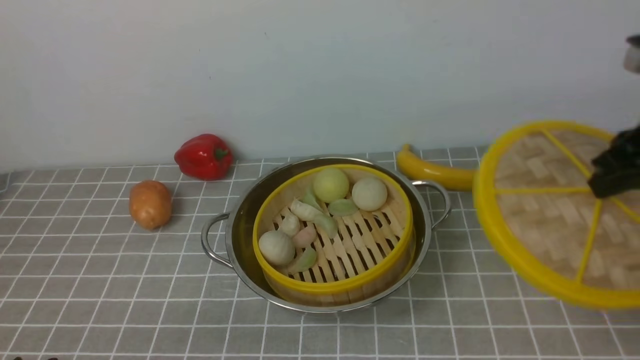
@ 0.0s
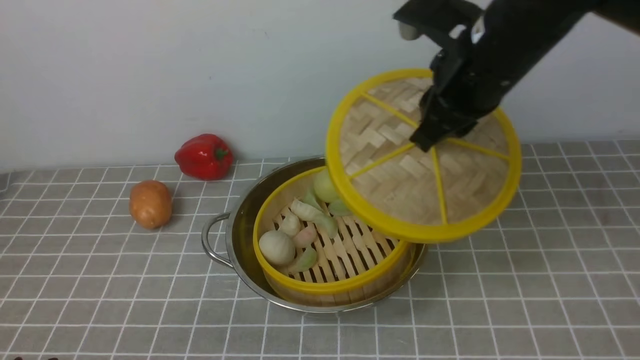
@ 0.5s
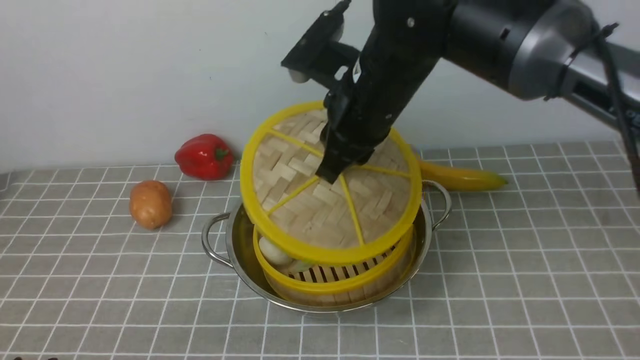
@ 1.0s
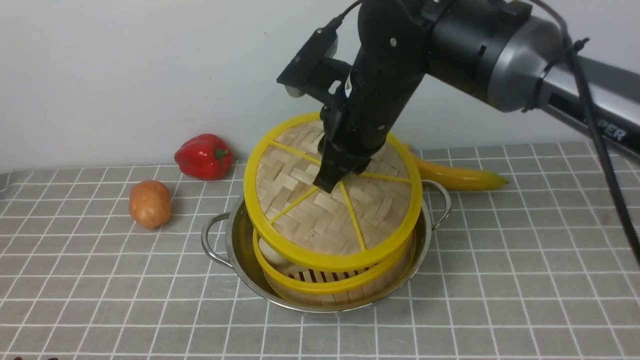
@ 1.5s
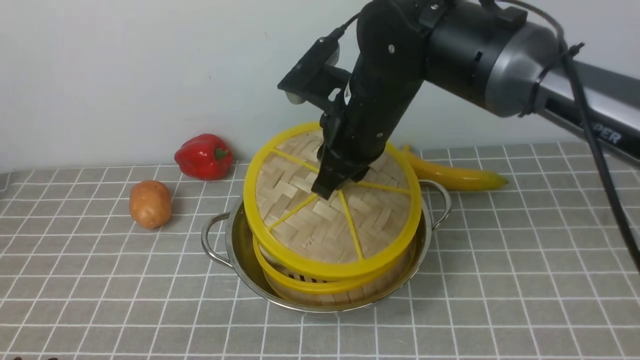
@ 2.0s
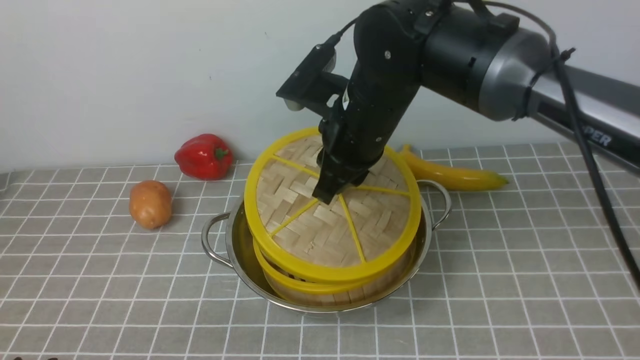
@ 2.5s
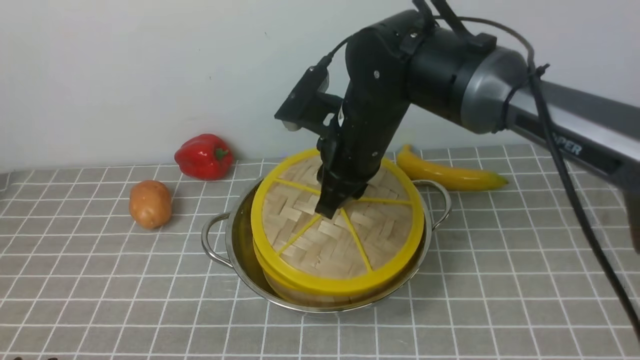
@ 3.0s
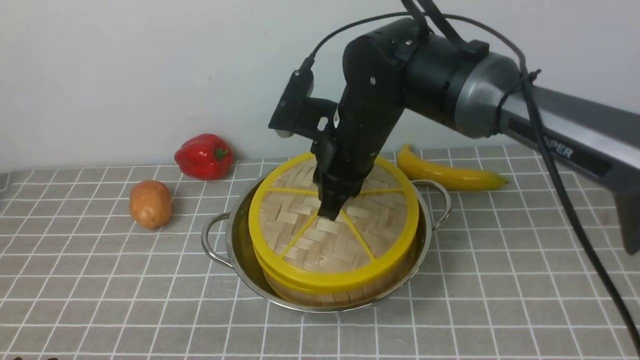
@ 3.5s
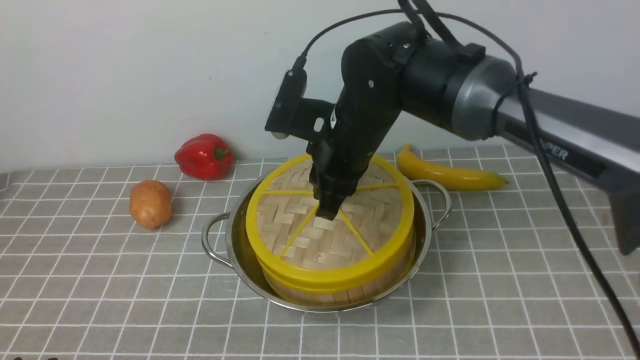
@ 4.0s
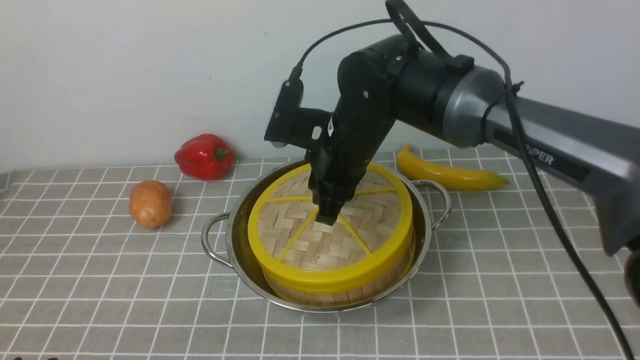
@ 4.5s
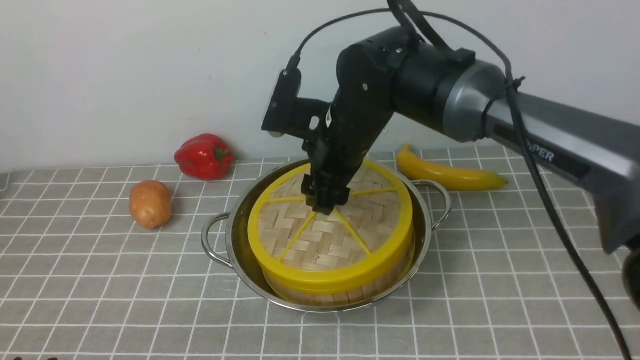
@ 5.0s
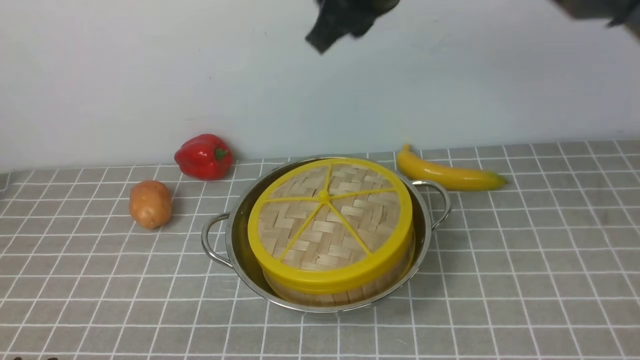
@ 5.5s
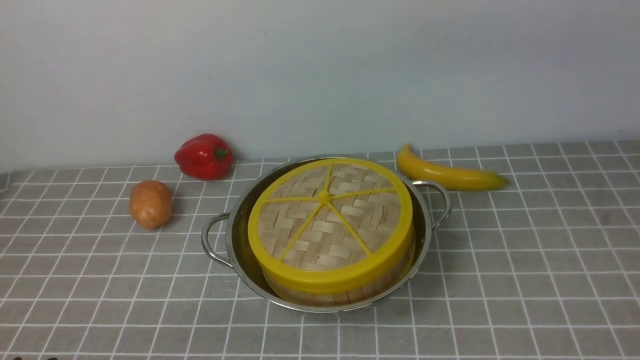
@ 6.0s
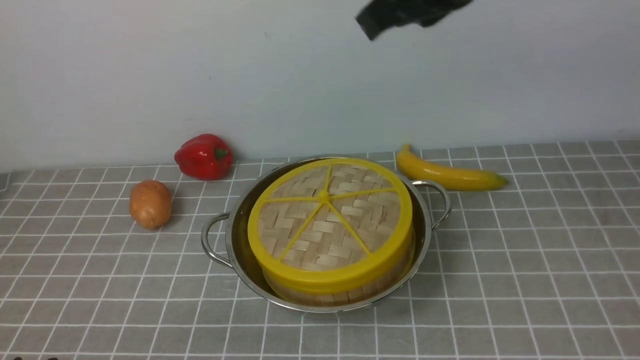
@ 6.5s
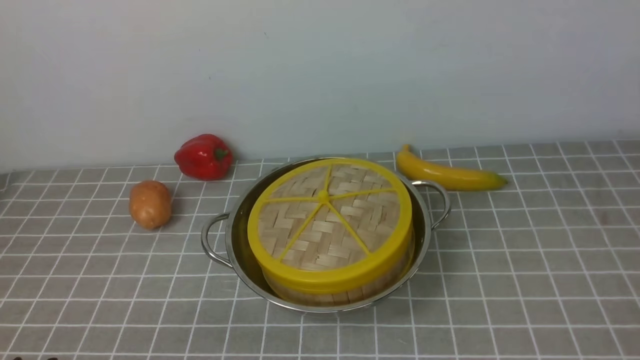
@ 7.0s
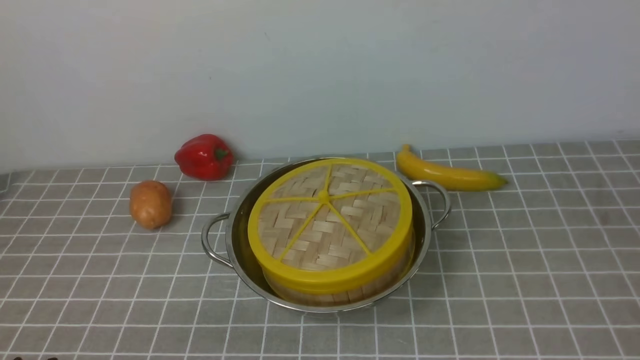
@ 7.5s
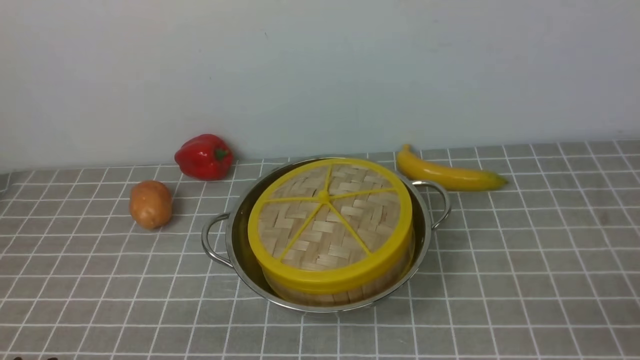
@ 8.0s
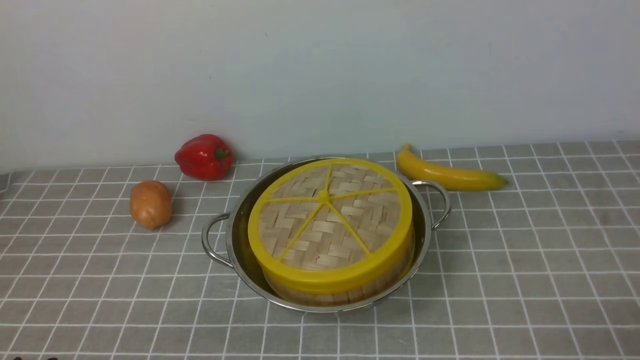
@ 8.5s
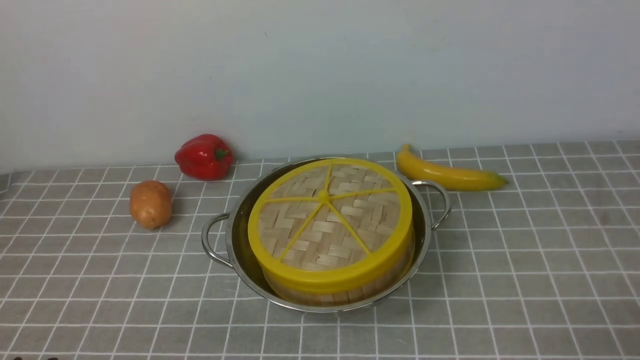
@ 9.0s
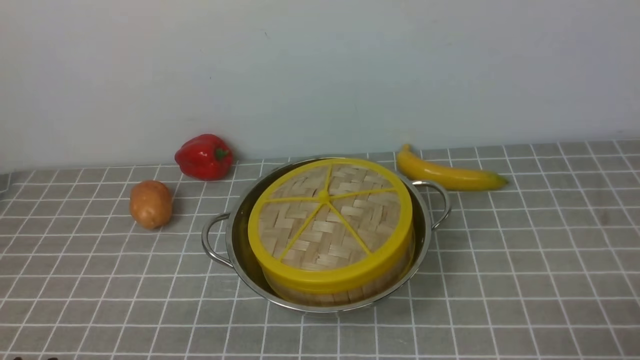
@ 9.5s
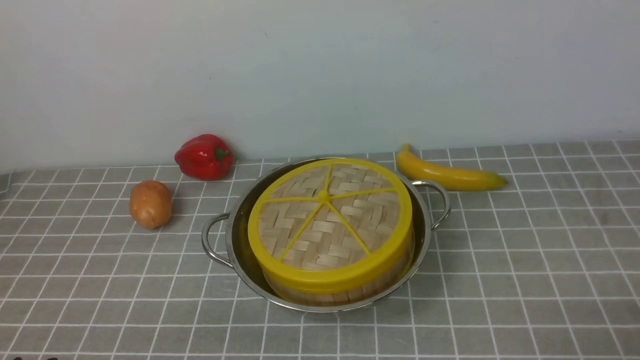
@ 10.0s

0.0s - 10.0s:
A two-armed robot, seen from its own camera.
Task of the whole recording: place the steamer in the pot on the grey tablecloth, and put the lid on the steamer.
Step, 0.0s - 5.0s: use the right arm to place the steamer lid on the steamer.
0.0s - 2.0s: The right gripper is displaced to the left by some 25 cm.
2.0s - 4.0s: There are only small adjustments of the grippers.
4.0s - 6.0s: The right gripper is displaced upward by approximately 20 cm, and closes up.

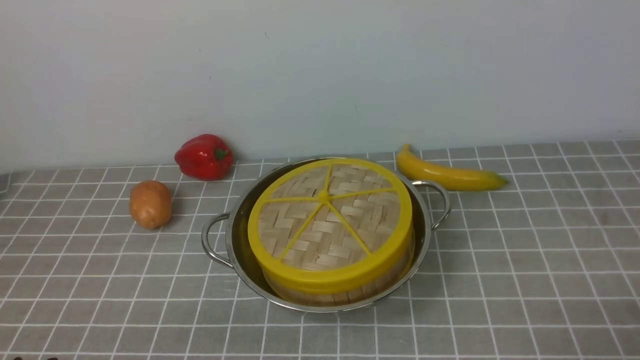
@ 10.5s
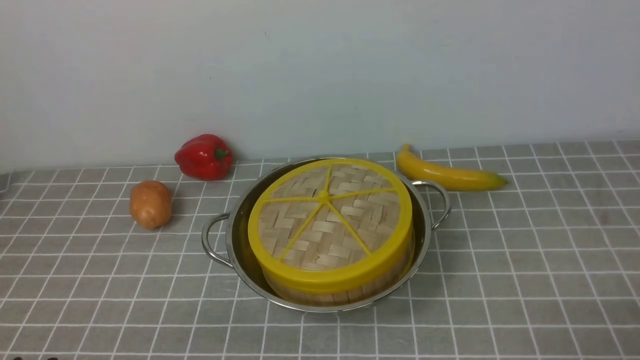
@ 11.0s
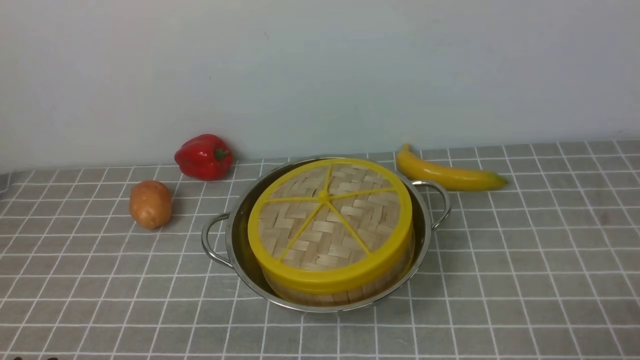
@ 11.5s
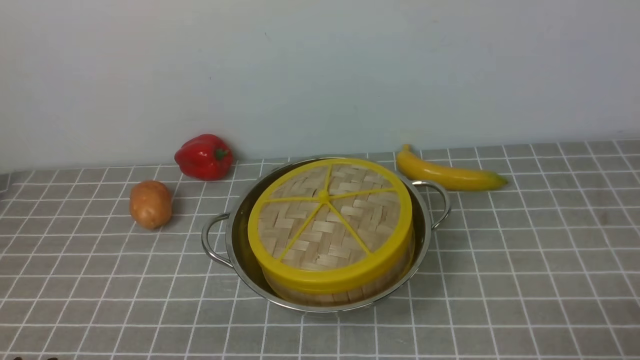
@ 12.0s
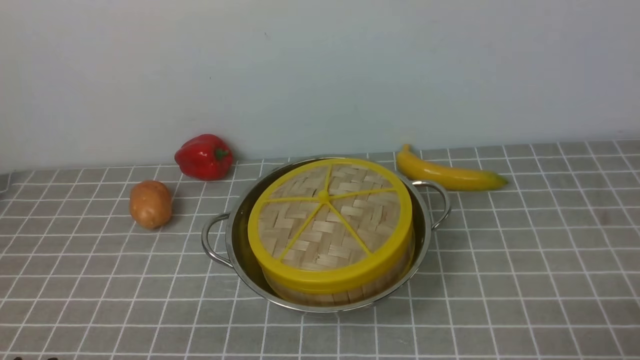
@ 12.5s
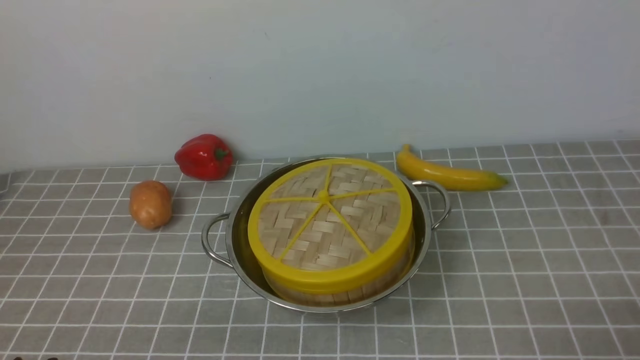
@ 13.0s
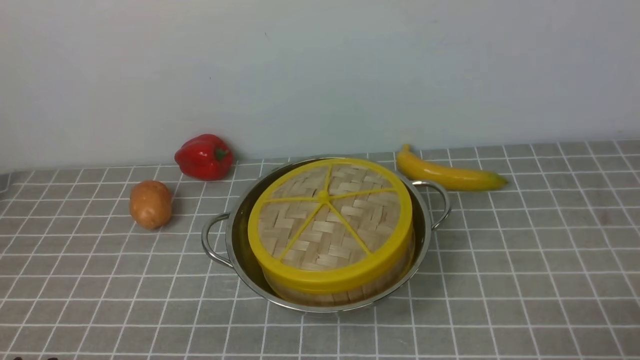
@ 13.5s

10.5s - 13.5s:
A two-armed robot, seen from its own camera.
Task of the whole recording: place the steamer in the pot on the grey tablecloth, and put the lid on the steamer.
10.5s - 13.5s: The two grippers keep their place.
